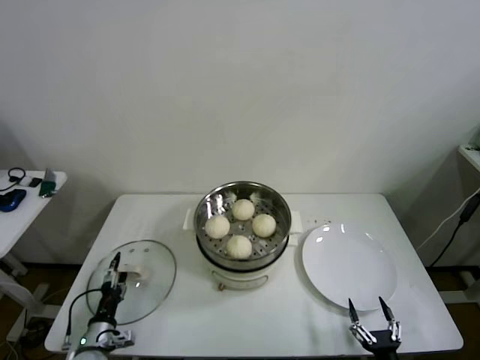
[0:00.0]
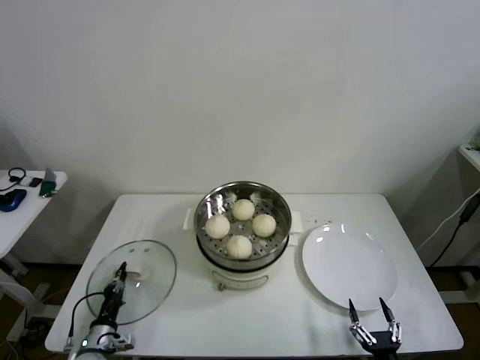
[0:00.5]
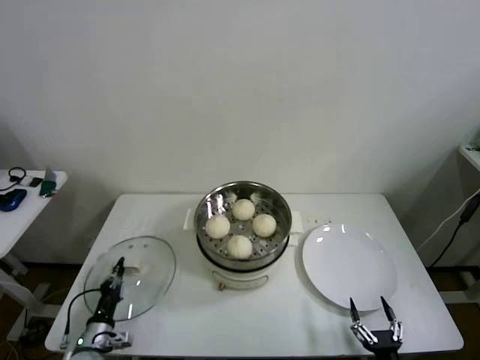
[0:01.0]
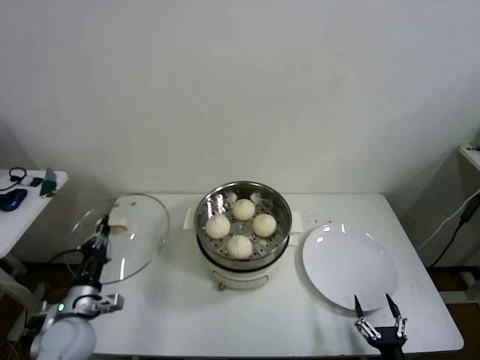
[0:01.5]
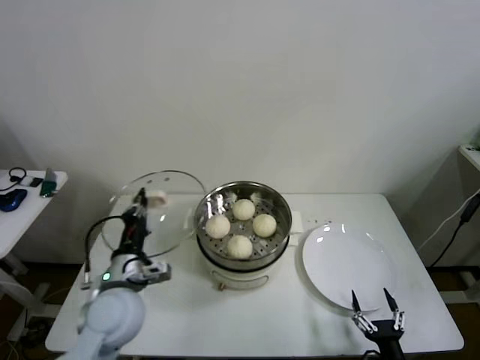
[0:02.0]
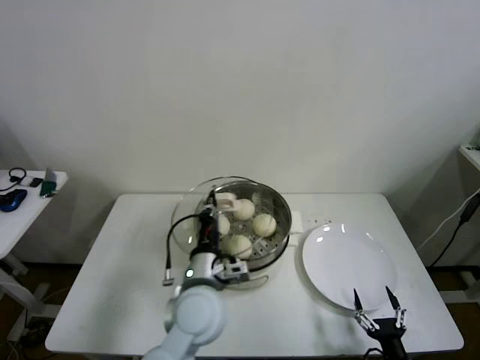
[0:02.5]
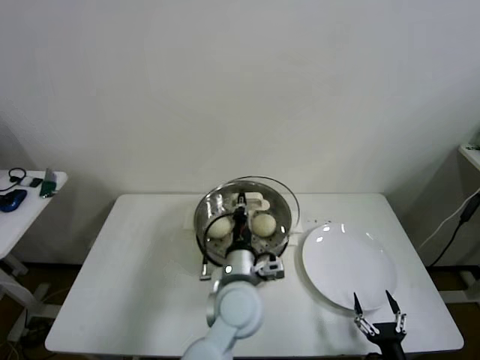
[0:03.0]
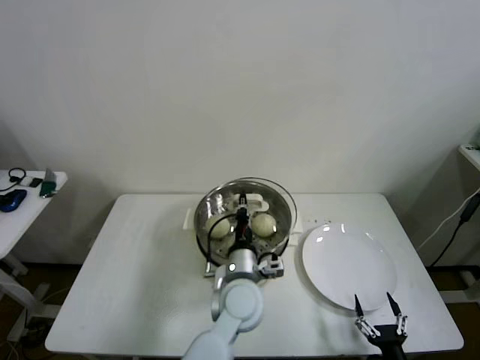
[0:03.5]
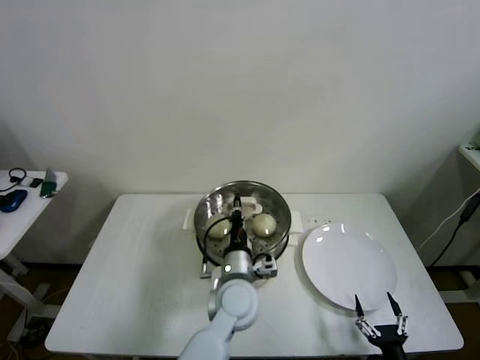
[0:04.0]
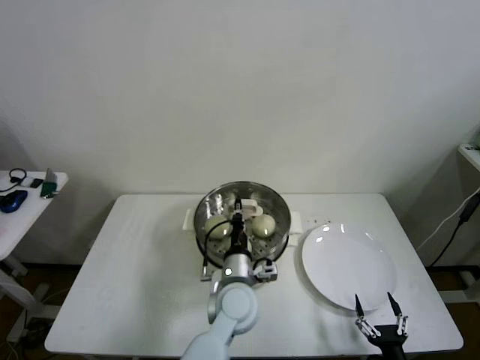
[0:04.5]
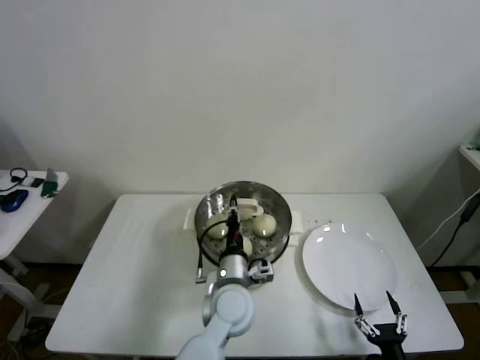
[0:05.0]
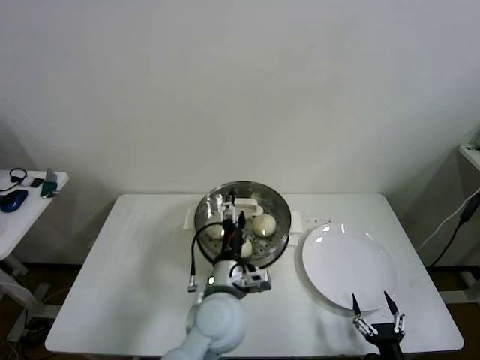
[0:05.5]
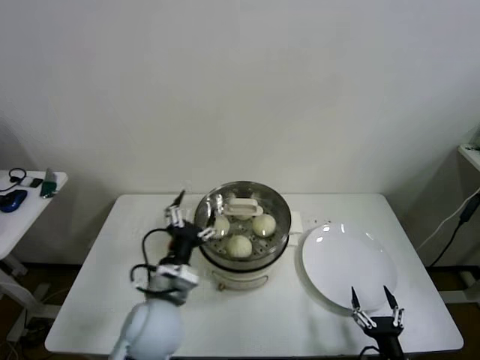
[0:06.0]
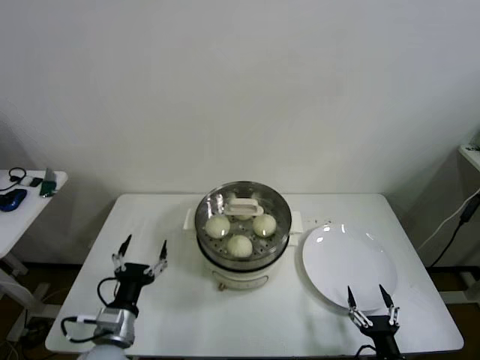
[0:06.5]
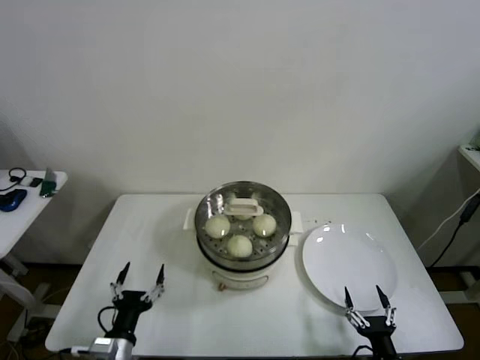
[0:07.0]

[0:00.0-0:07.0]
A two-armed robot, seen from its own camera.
Step, 0:01.0 to 0:04.5: Place the pot lid on the steamer with left gripper.
0:00.0 to 0:02.0: The left gripper is displaced upward and to the right by some 25 cm, and closes up.
0:02.0 to 0:03.5: The left gripper goes some 25 cm to the right.
0:03.5 to 0:05.0: The grippers move only a little.
0:05.0 to 0:07.0: The left gripper travels to the left and backward by approximately 30 cm, and opens its fingers.
